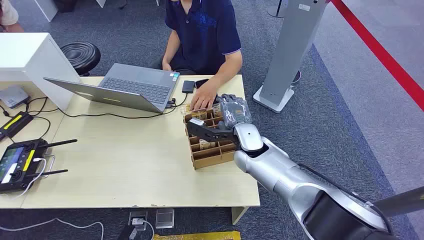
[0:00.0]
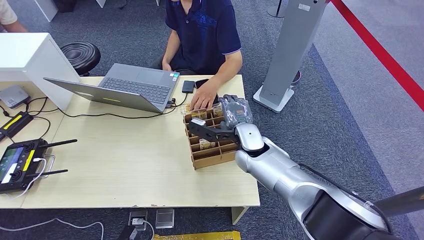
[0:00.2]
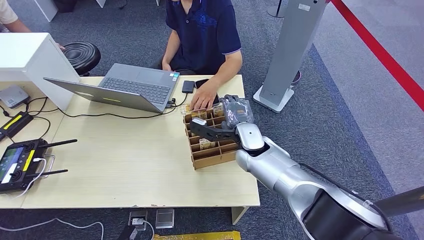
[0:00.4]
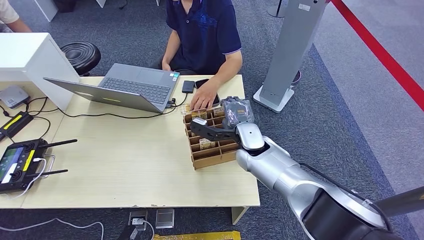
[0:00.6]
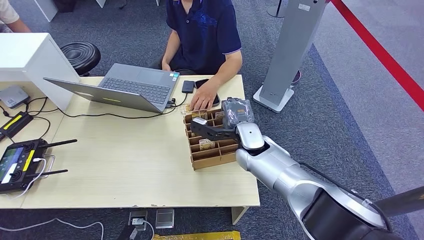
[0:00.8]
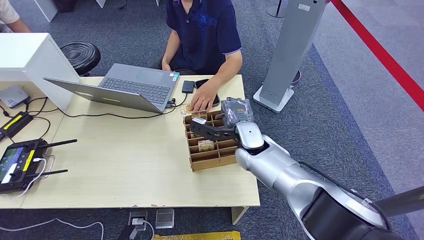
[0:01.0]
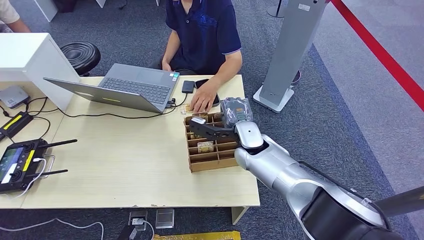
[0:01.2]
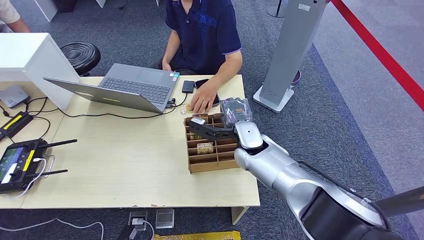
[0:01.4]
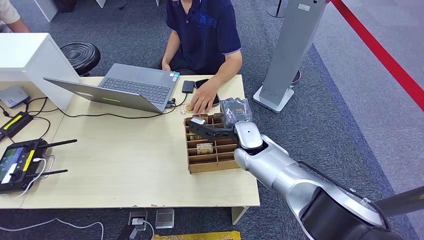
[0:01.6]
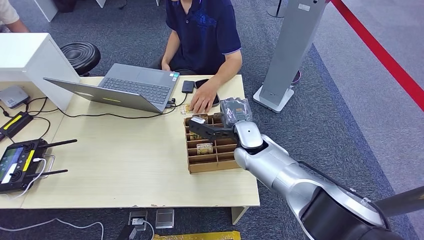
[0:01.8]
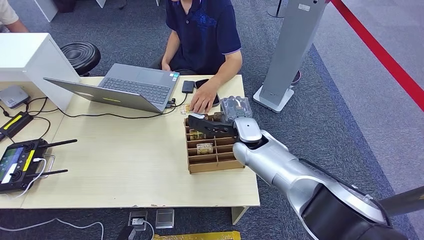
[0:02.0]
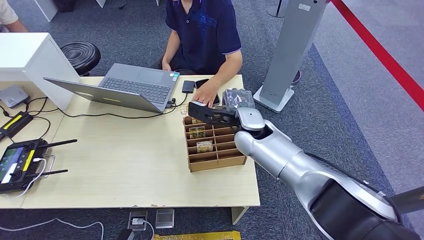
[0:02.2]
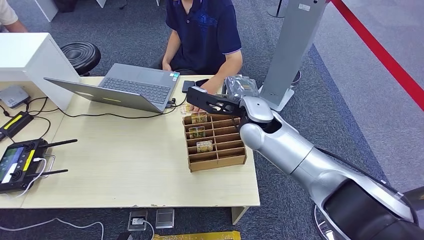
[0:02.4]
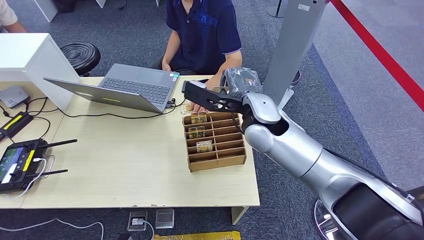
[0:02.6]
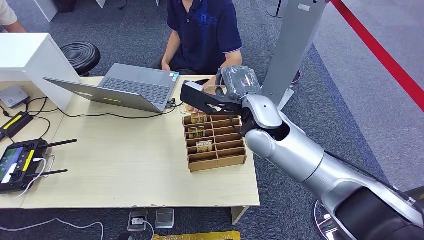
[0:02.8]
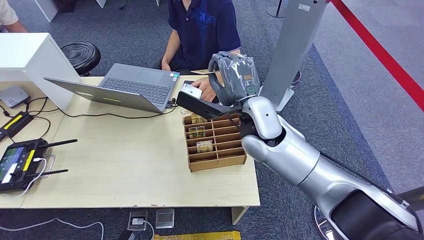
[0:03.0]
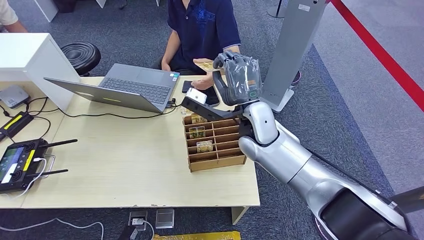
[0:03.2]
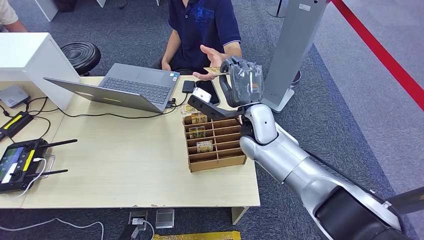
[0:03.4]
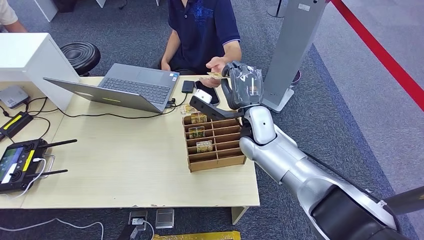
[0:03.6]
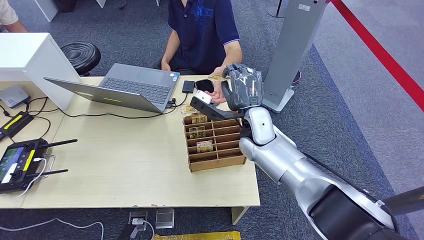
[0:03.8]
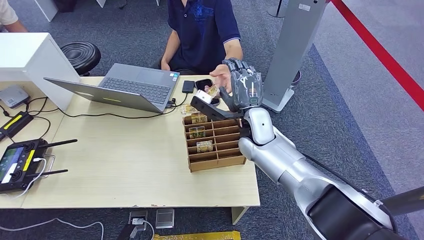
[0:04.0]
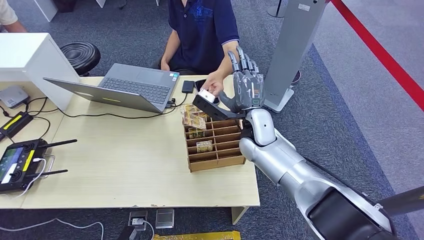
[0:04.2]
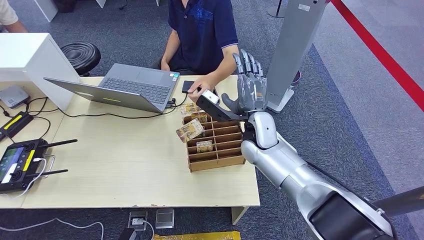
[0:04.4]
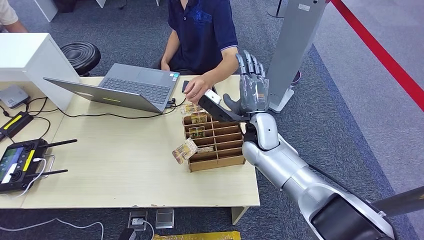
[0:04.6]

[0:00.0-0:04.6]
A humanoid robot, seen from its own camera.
Step, 0:00.0 to 0:02.4: Pick up the key card from the card box.
Step, 0:03.2 to 0:04.6: Hand the key card to the target.
0:01.6 to 0:03.0: The right hand travels upward by roughly 10 cm.
0:03.0 to 0:04.6: The right hand goes approximately 10 cm downward.
